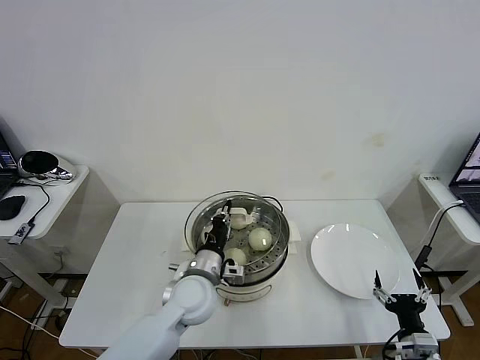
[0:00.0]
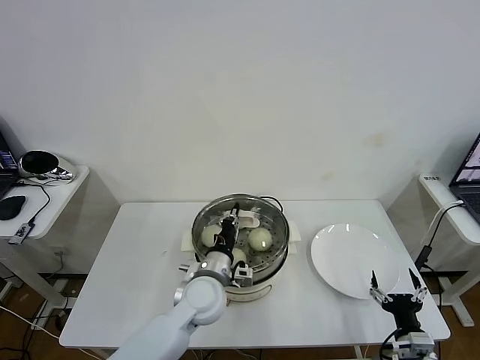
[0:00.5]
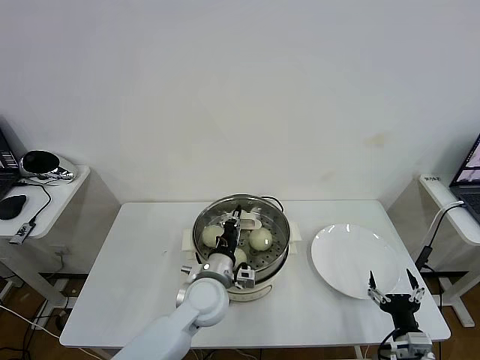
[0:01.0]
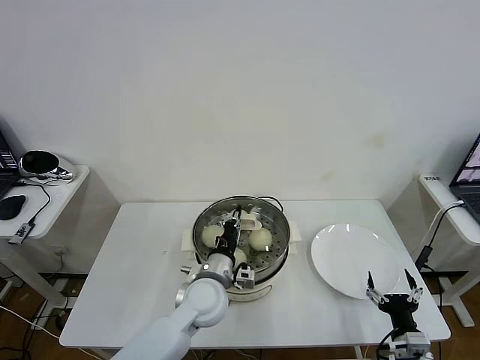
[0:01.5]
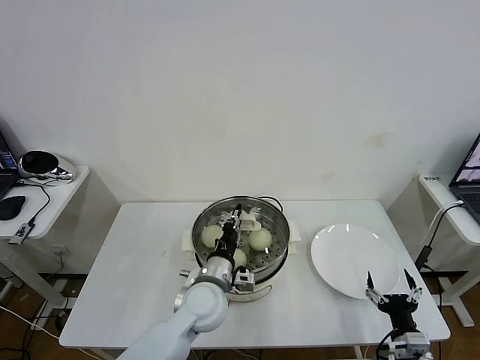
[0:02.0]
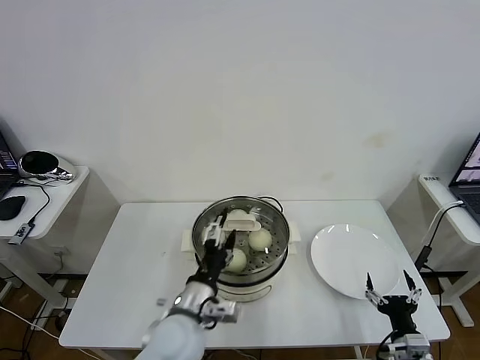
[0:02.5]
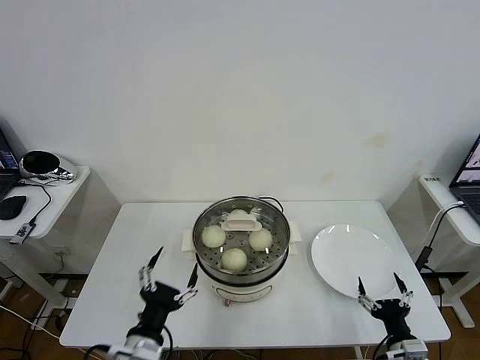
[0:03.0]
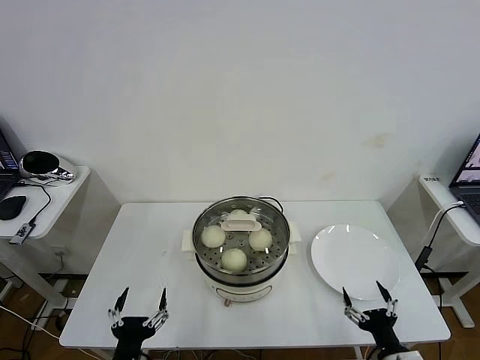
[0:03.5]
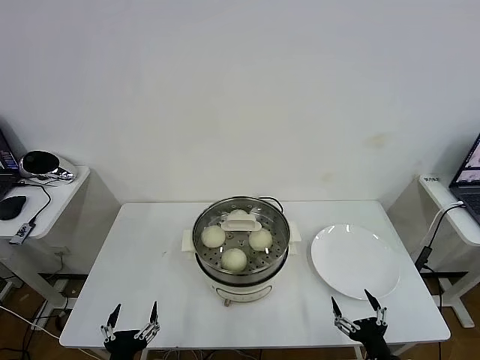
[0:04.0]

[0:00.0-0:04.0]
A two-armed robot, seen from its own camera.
Task of the whole recording: take steamed baozi put them in steamer then cover it.
Step, 0:00.0 to 0:02.0: Place the pot lid on the steamer with left gripper.
0:00.0 to 0:02.0: There are only small adjustments of the grippers.
0:02.0 to 0:04.0: The left gripper goes roughly 30 cm backward and to the left, and opens. Meanwhile the right gripper moves backward, approximately 5 cm.

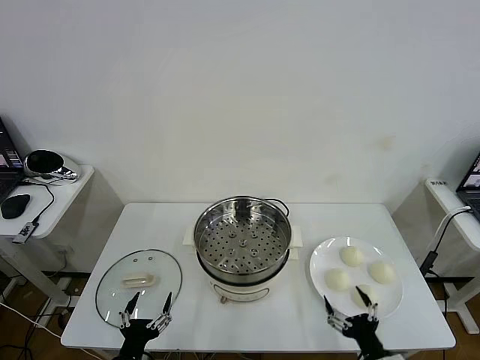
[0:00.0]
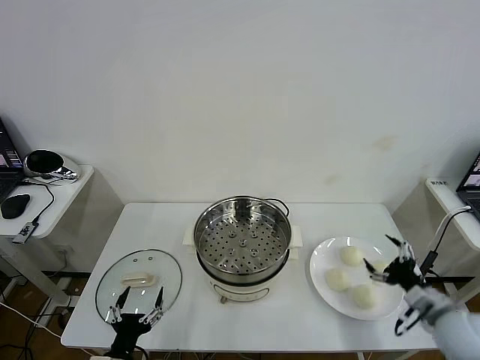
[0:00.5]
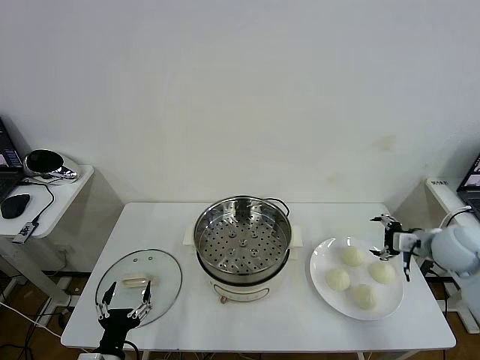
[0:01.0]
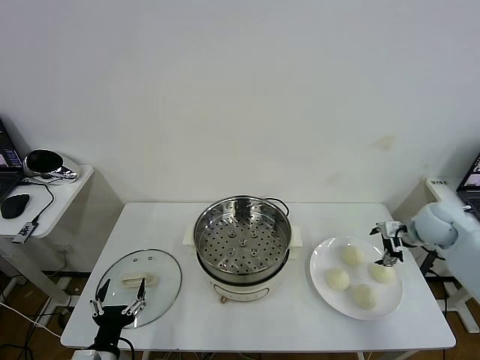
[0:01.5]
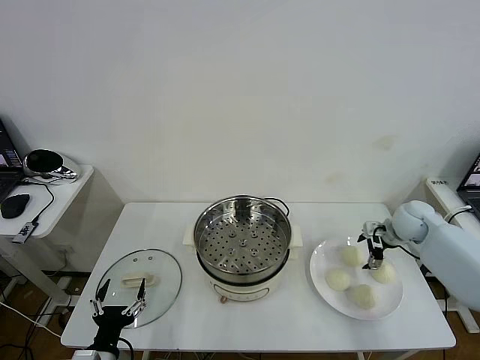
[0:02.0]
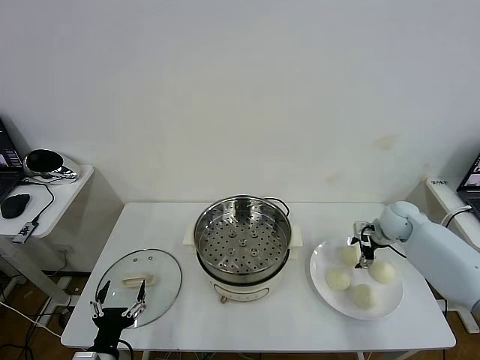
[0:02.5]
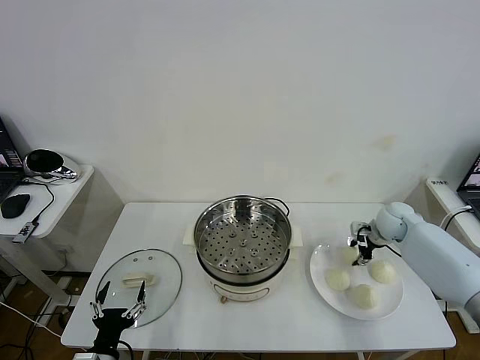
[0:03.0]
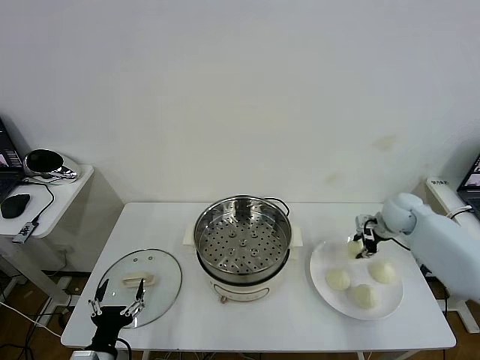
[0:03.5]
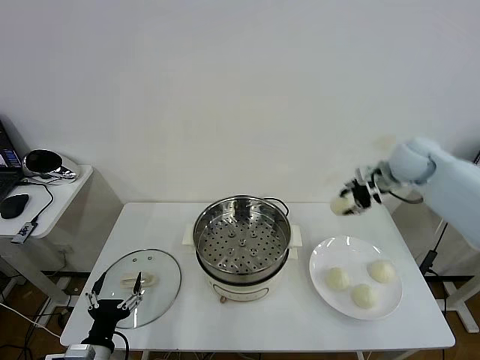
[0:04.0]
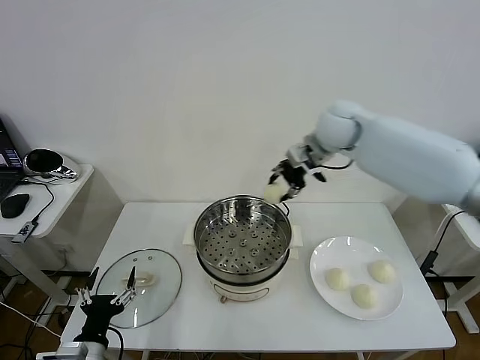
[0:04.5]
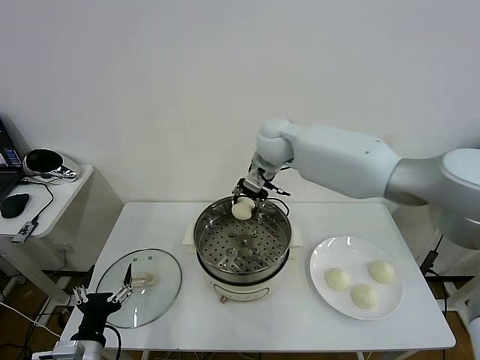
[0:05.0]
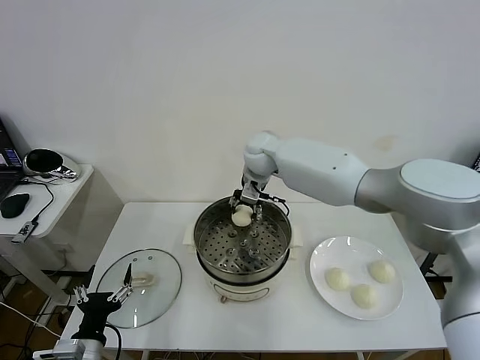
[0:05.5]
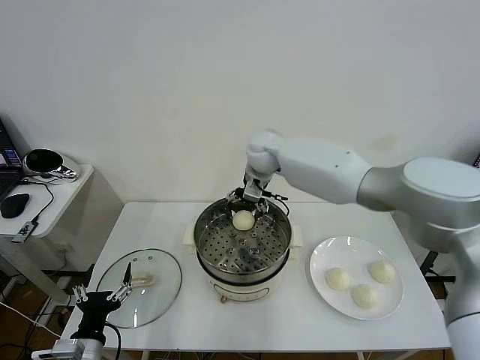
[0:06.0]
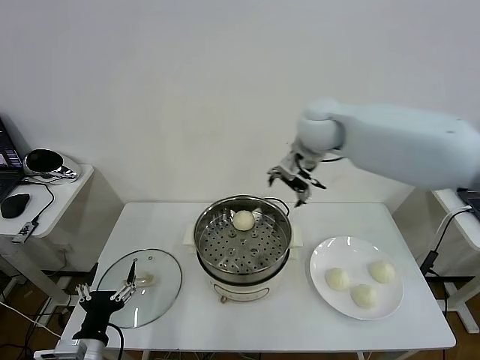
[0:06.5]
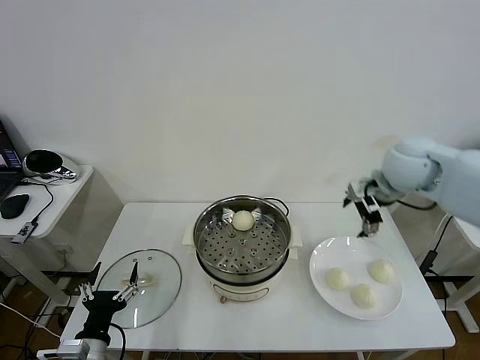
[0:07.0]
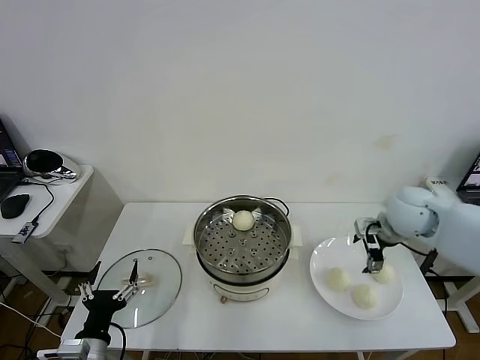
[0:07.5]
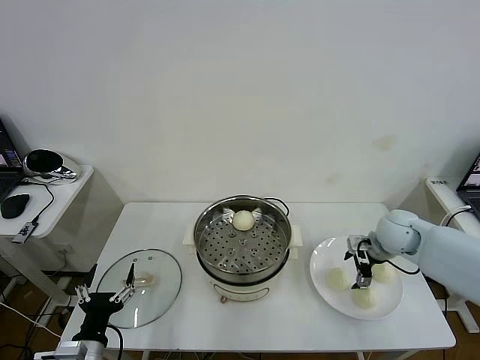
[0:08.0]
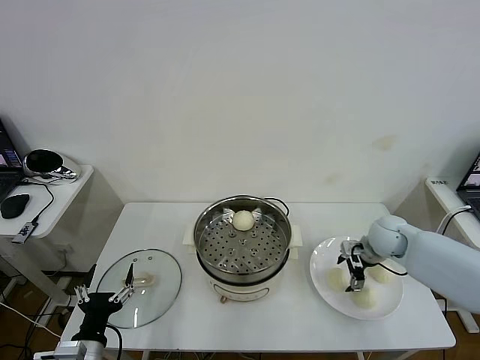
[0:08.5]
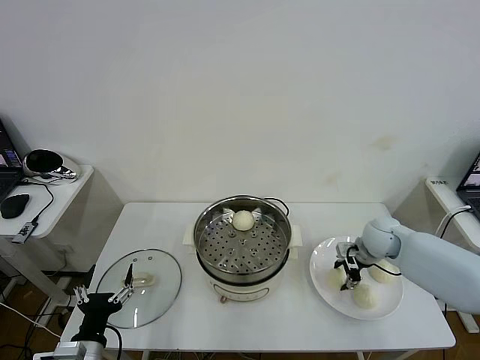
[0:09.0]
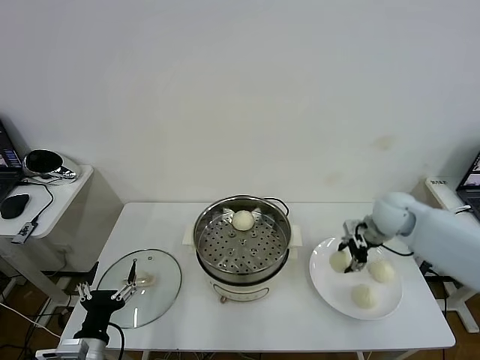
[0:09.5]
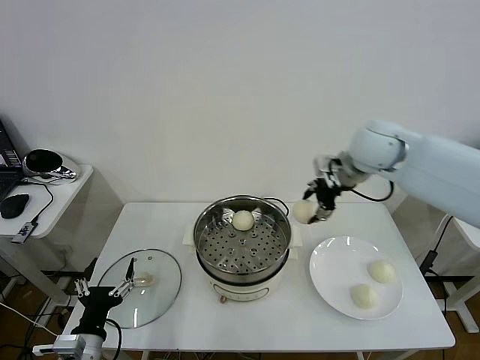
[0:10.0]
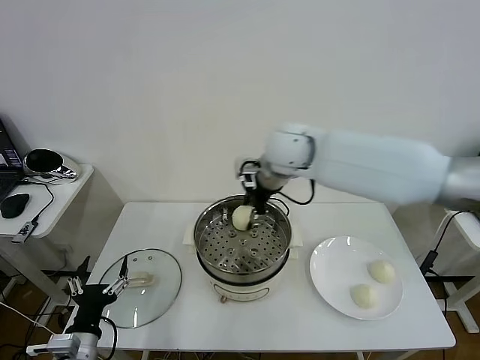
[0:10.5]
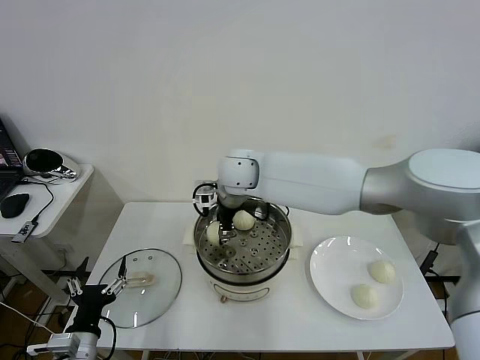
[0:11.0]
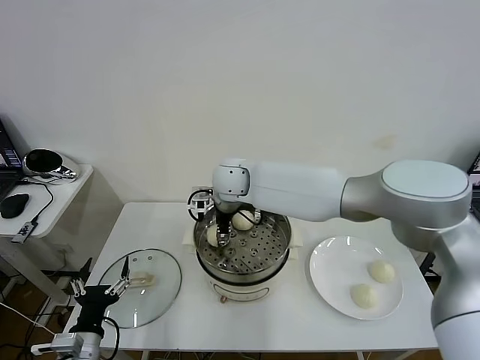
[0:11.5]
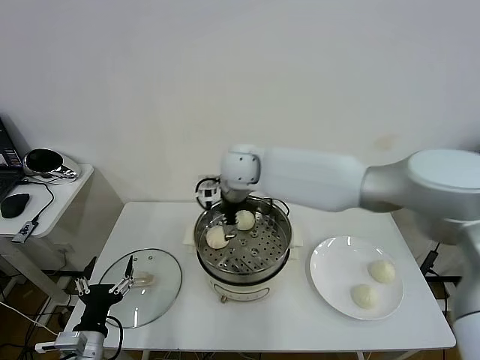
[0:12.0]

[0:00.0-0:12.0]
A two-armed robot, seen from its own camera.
Task of the whole recording: take steamed baozi put them in steamer then cover it.
Step, 0:00.0 to 0:03.0: Grasp the baozi in the plate with right gripper.
Step, 0:03.5 to 0:06.0: Place the baozi on the steamer with right gripper.
Step, 0:06.5 to 0:09.0: Grasp the baozi in the plate with right gripper.
Step, 0:09.5 to 0:12.0: Place the baozi on the steamer with right gripper.
0:02.0 to 0:04.0: The right gripper travels upward by roughly 15 cm, and closes.
0:04.0 to 0:06.0: The right gripper goes roughly 30 cm to the left, and opens up.
0:06.0 to 0:08.0: The right gripper shifts roughly 35 cm to the right and backward.
0:08.0 to 0:10.0: The right gripper travels upward and to the left by roughly 20 cm, and closes its fingers.
0:10.0 to 0:12.0: The right gripper moves to the left, some 25 cm, and opens up.

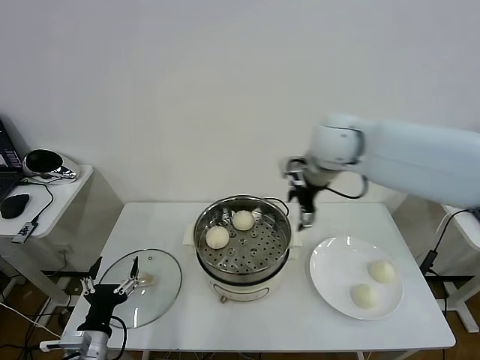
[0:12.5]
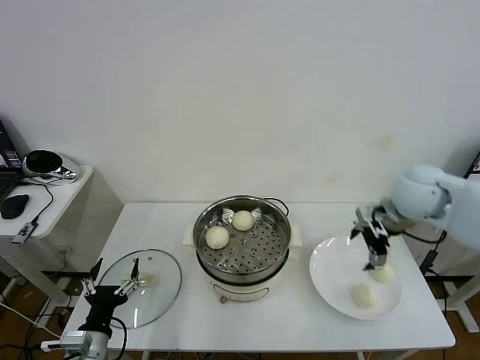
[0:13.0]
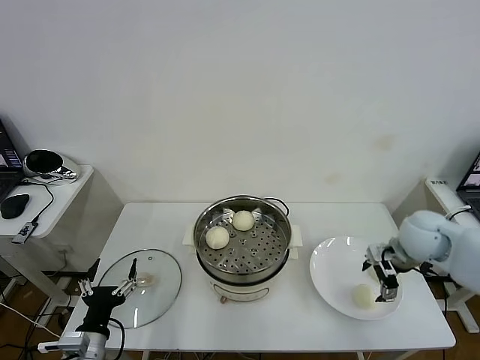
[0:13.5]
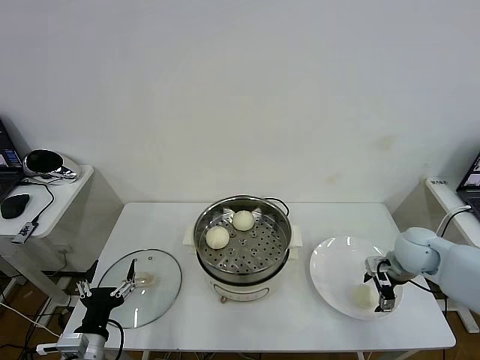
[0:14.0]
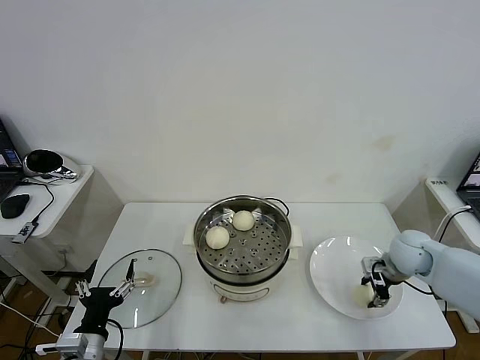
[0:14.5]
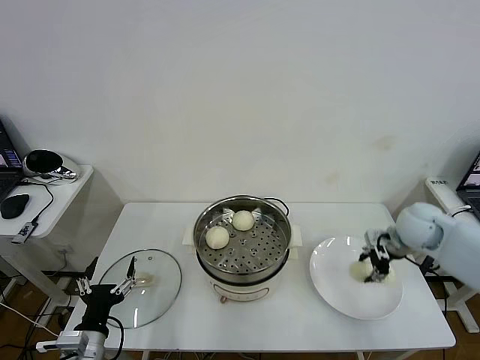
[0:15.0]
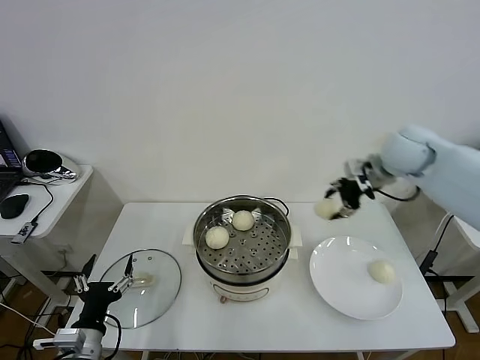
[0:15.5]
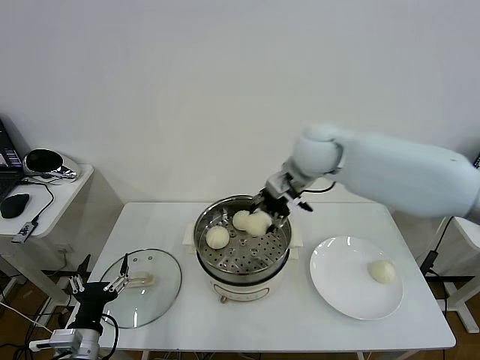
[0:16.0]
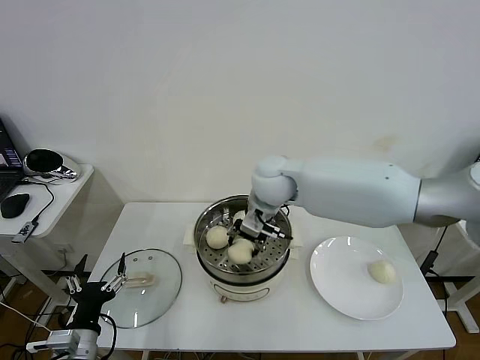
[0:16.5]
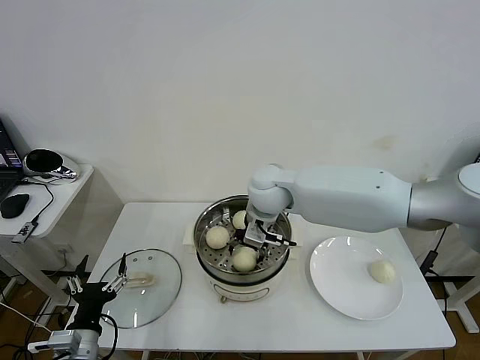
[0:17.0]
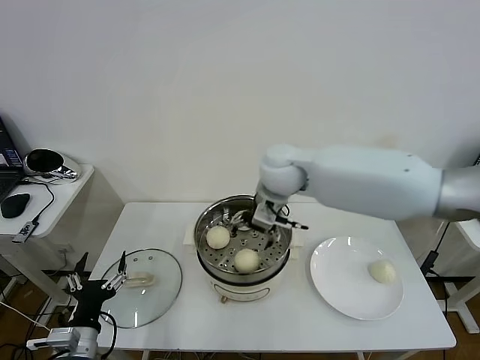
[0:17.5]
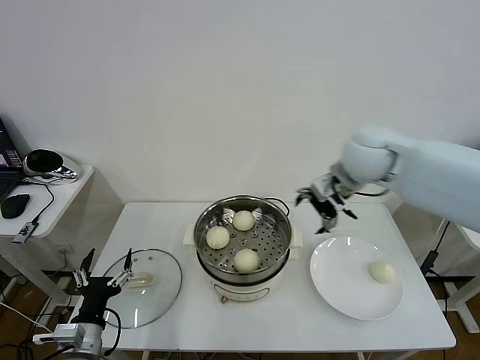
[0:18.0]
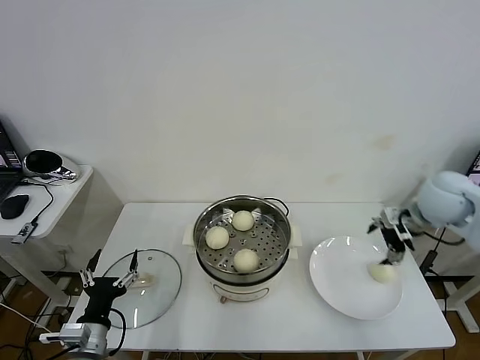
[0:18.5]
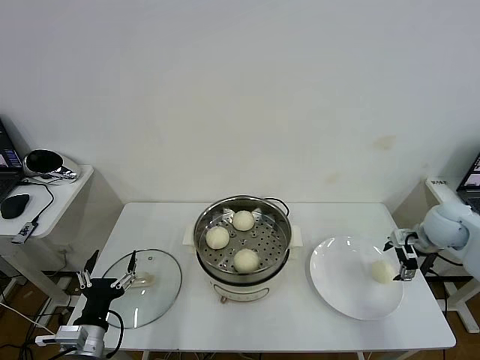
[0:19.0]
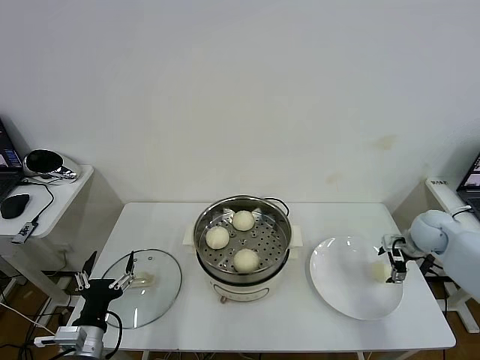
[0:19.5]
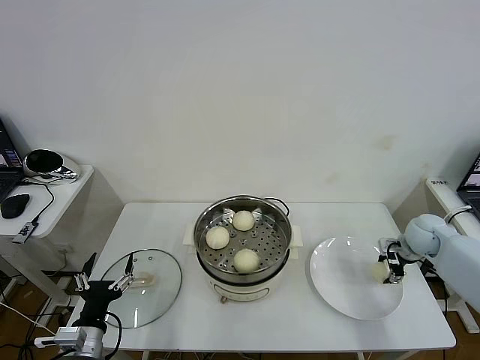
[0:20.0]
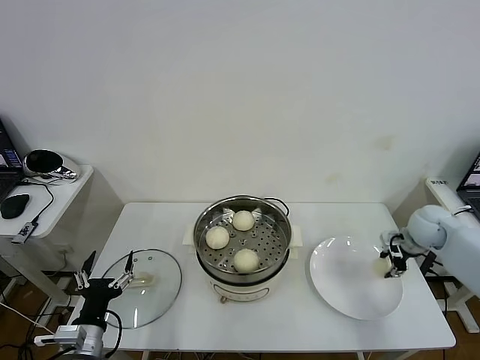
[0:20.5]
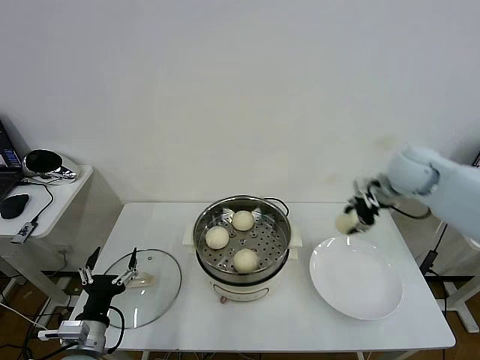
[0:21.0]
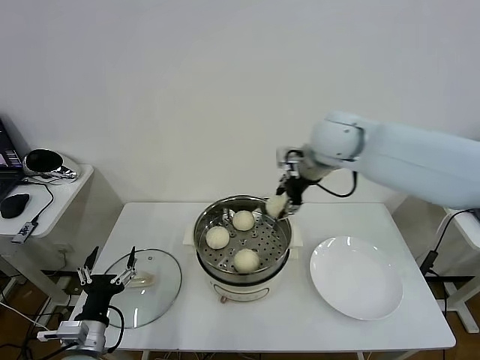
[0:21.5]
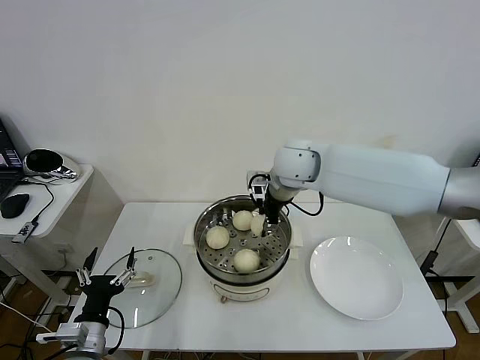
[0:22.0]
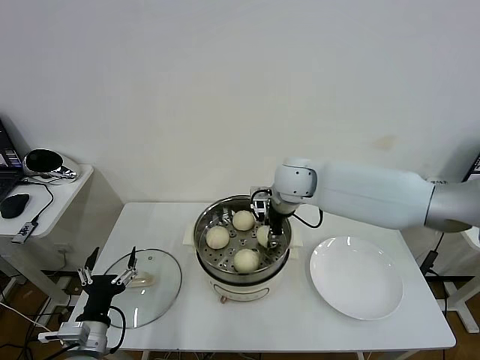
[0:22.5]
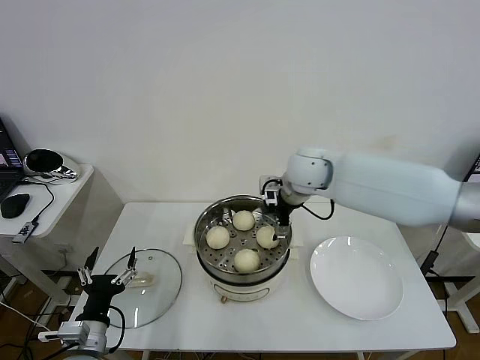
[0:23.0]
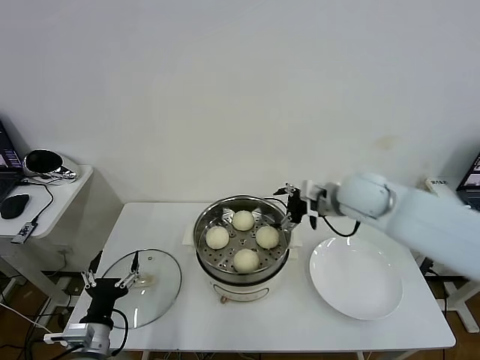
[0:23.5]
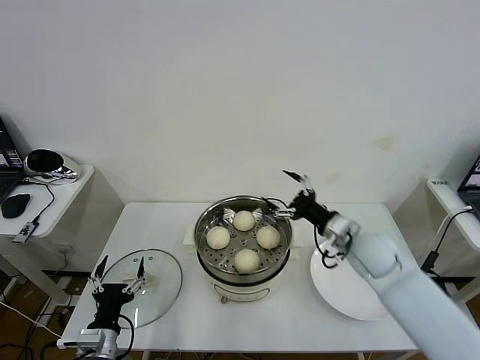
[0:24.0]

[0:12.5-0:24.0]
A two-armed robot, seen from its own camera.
Task of the whole recording: take steamed baozi put them in steamer then cover it.
Step, 0:12.5 to 0:14.5: Grasp the baozi in the plate with right gripper.
Step, 0:15.0 to 0:17.0: Place the baozi on the steamer with right gripper.
Step, 0:17.5 to 0:20.0: Grasp the baozi in the plate with right gripper.
Step, 0:20.5 to 0:22.5: Place the baozi on the steamer with right gripper.
0:12.5 to 0:14.5: The right gripper travels downward and to the right by approximately 35 cm, and closes its fingers.
0:14.5 to 0:16.5: The right gripper heads to the left and upward, covering roughly 35 cm.
0:16.5 to 0:18.5: The right gripper goes about 30 cm to the right, and opens its fingers.
0:18.5 to 0:20.0: The right gripper travels downward and to the right by roughly 20 cm, and closes up.
0:20.0 to 0:22.0: The right gripper moves to the left and upward, about 40 cm.
0:22.0 to 0:24.0: The right gripper goes some 25 cm to the right, downward and backward, and opens up.
